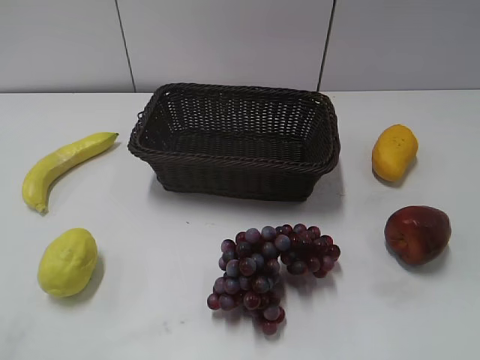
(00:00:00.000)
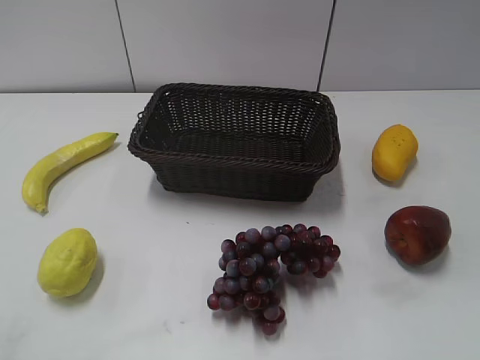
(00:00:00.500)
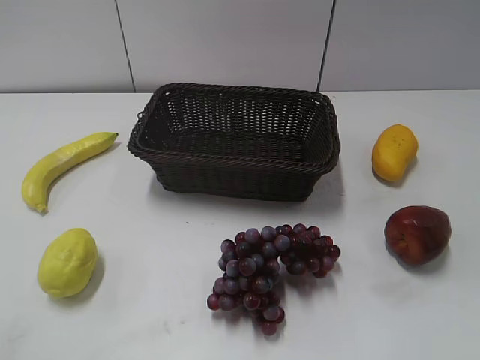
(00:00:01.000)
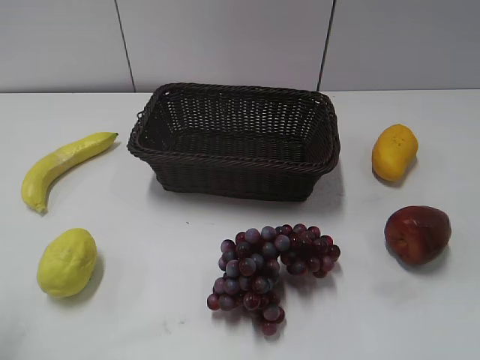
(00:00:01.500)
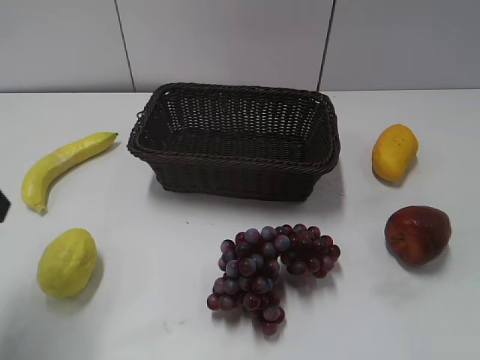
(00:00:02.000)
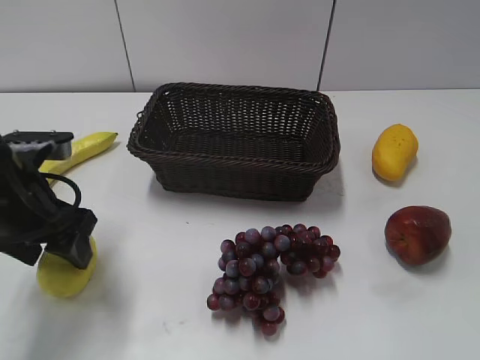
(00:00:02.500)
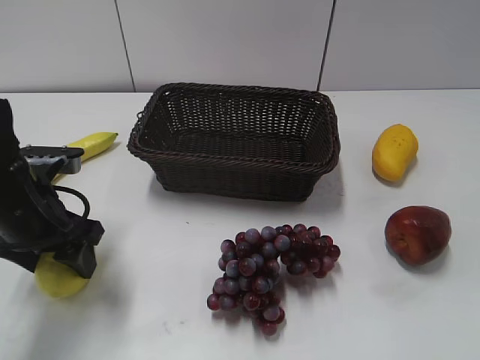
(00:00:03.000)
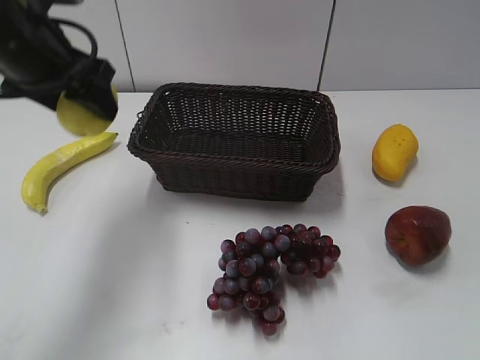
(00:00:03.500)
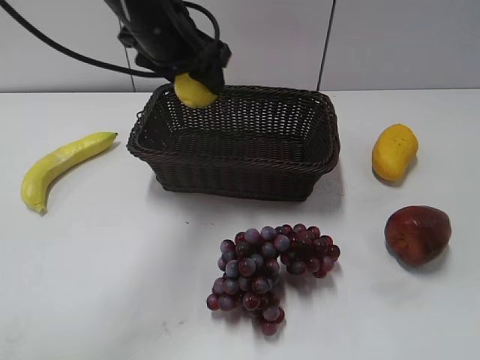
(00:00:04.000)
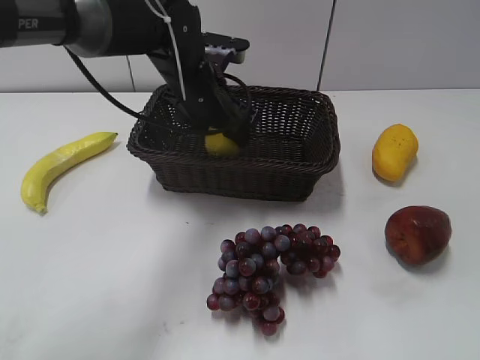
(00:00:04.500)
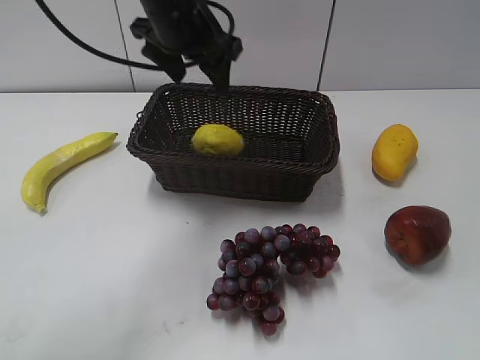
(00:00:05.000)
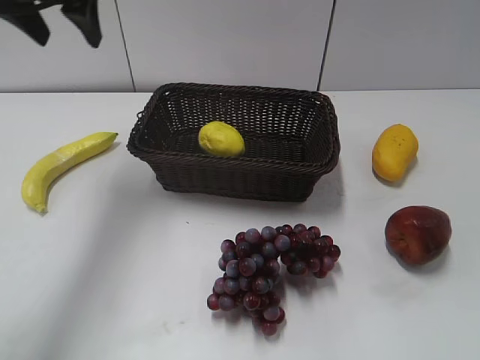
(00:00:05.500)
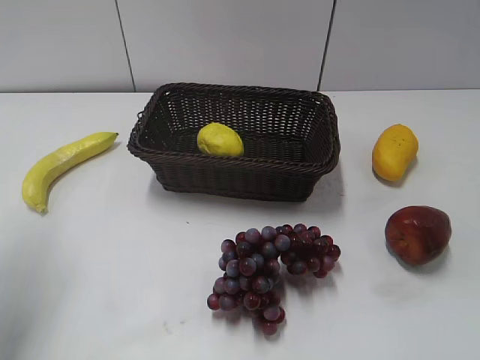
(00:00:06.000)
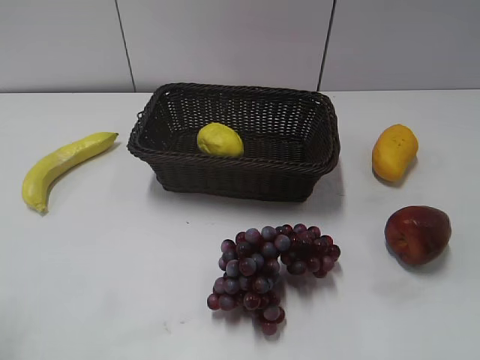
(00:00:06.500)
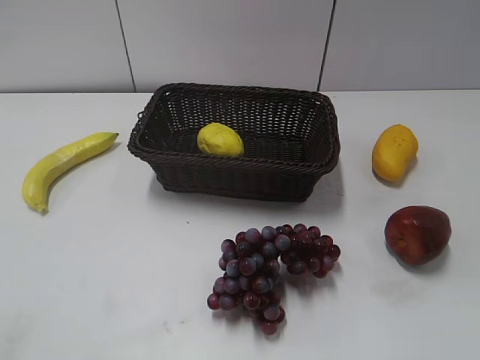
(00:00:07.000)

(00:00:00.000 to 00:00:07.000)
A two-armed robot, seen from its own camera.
Step, 00:00:02.000 - 00:00:02.500: Grasp the lemon with left gripper.
Step, 00:00:03.000 - 00:00:04.500: Place the lemon in the basket with left gripper.
00:00:02.000 - 00:00:03.500: The left gripper goes roughly 15 cm forward and to the right, and travels downward and back again, about 10 cm each way.
00:00:03.500 - 00:00:05.000: The left gripper shifts roughly 10 cm to the right and forward.
00:00:05.000 - 00:00:07.000: The left gripper is displaced backward and to the left by approximately 40 cm.

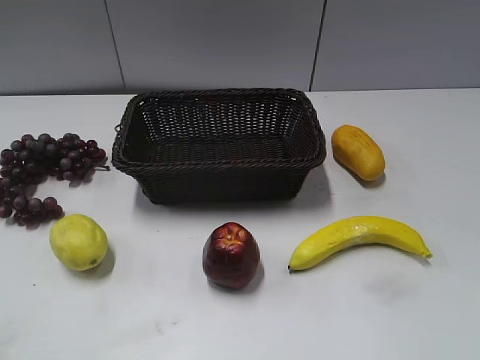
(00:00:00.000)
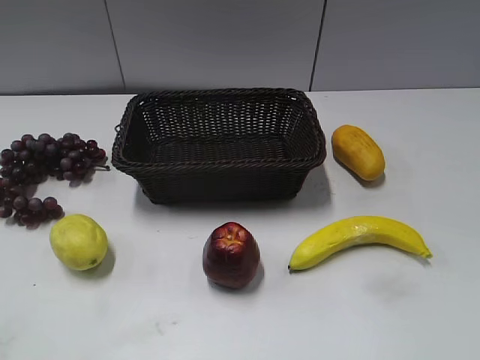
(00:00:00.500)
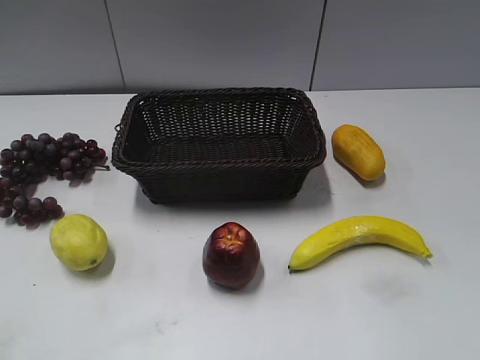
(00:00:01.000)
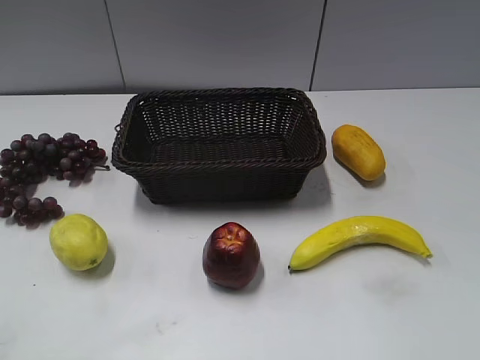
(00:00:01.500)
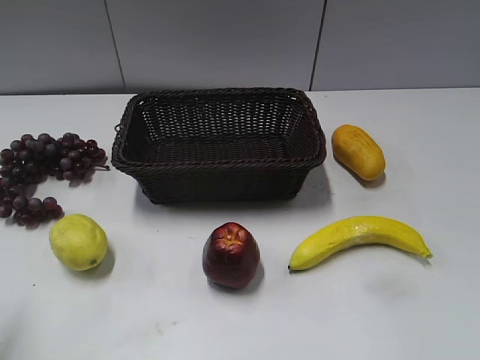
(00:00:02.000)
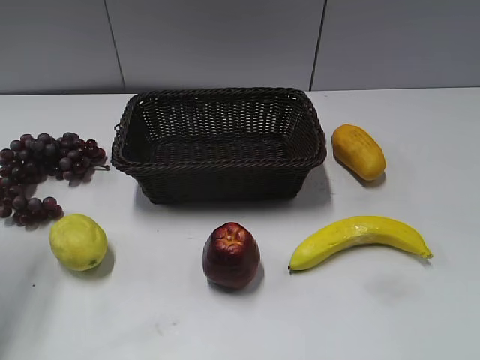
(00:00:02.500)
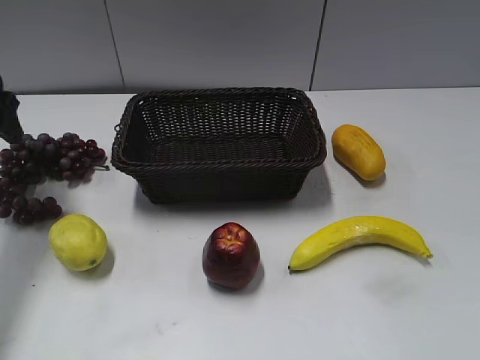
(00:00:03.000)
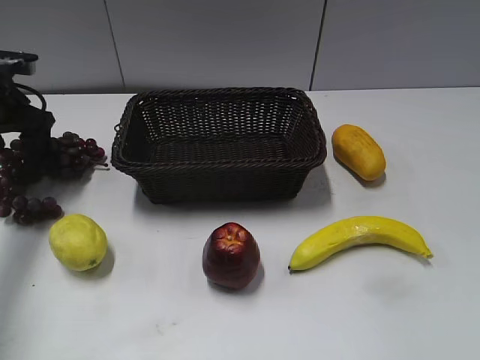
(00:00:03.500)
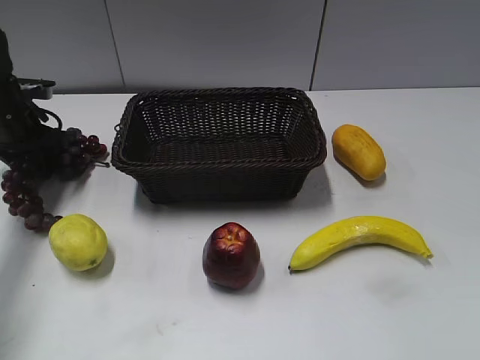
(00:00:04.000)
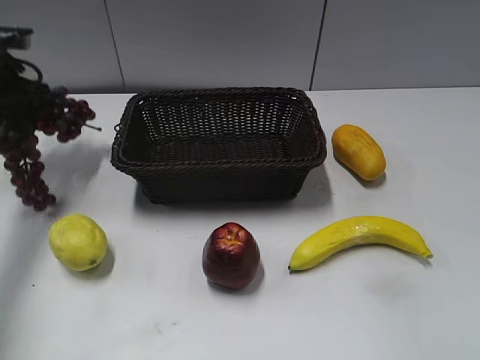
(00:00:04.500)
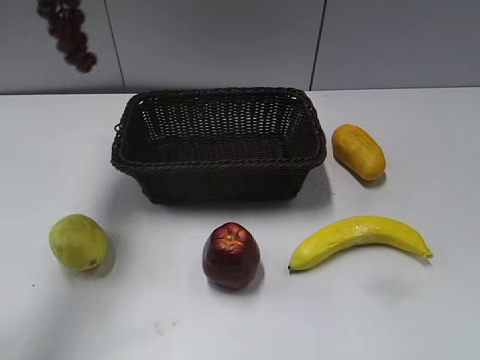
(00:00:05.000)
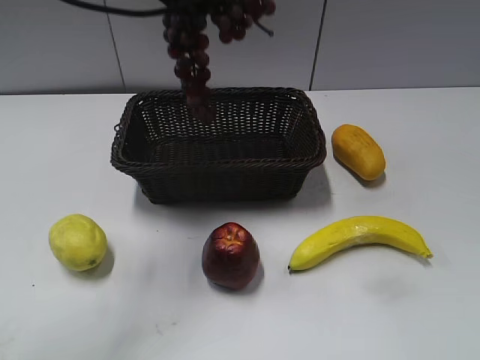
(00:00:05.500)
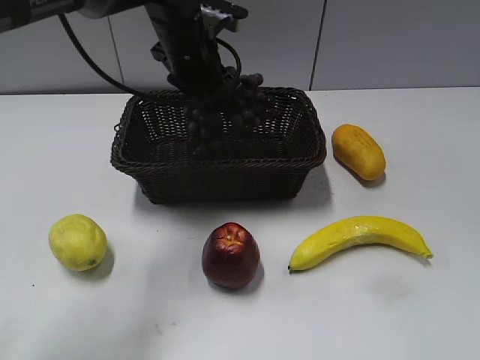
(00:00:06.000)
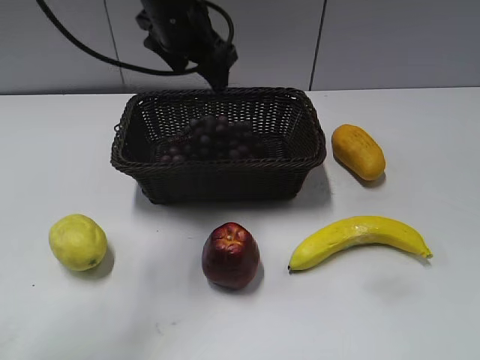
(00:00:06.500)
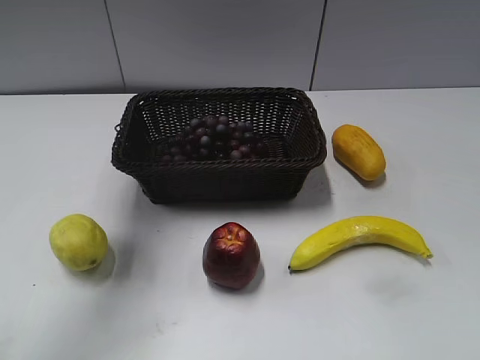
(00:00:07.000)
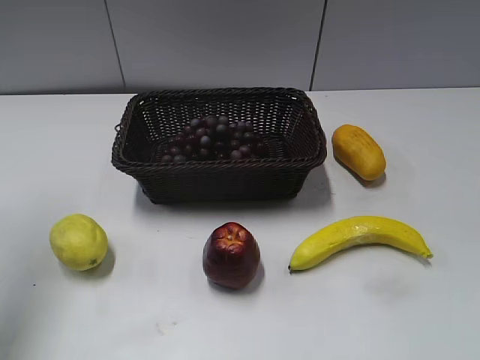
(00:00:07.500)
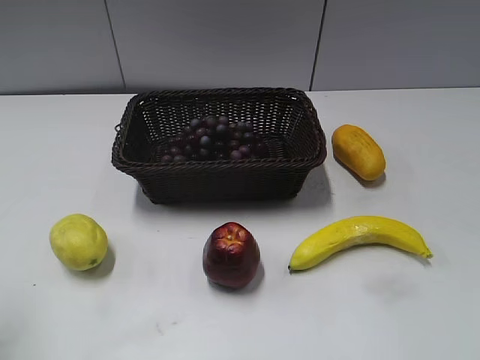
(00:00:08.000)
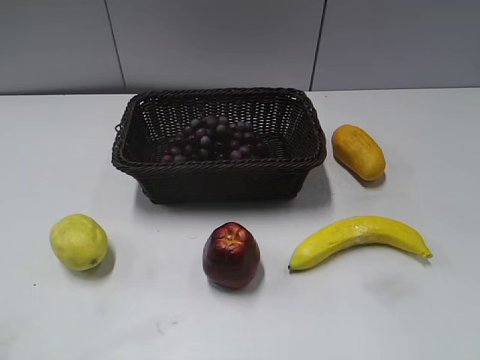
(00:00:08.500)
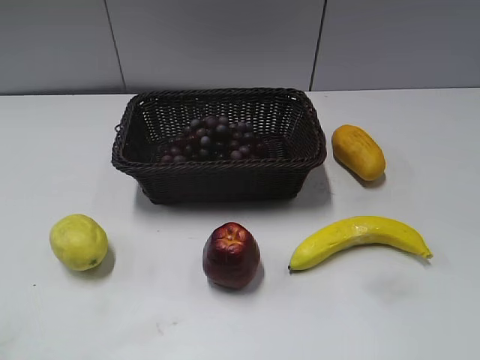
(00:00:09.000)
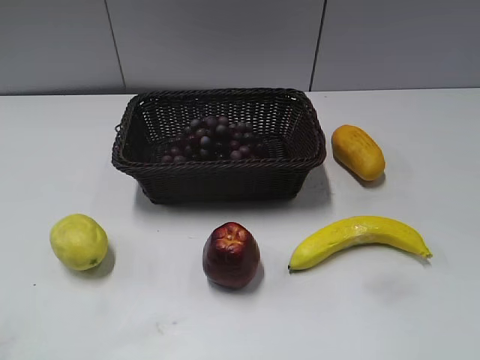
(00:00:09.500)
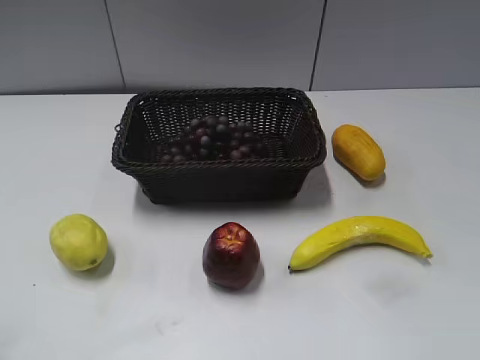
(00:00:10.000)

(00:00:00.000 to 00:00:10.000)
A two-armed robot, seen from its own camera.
Step, 00:00:03.000 - 00:00:03.500: Grasp the grape with left gripper.
Step, 00:00:04.500 - 00:00:06.000: Place the grape in the basket with left gripper.
00:00:02.000 - 00:00:04.000: The left gripper travels forward and downward by about 35 cm, and closes up.
00:00:04.000 - 00:00:06.000: The left gripper heads to the right, covering roughly 25 cm, and moves approximately 30 cm upward and comes back.
00:00:06.000 - 00:00:08.000: The left gripper heads backward, to the left and upward, covering approximately 40 cm, and opens up.
